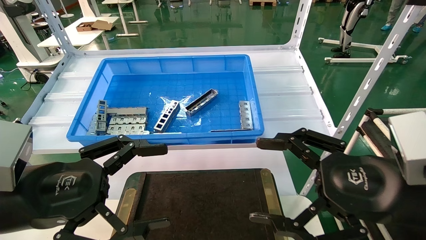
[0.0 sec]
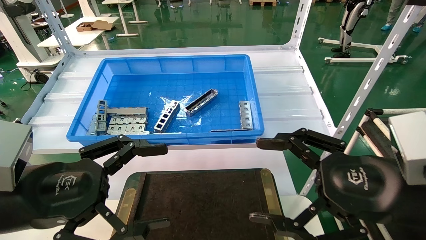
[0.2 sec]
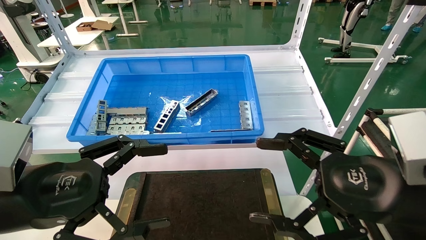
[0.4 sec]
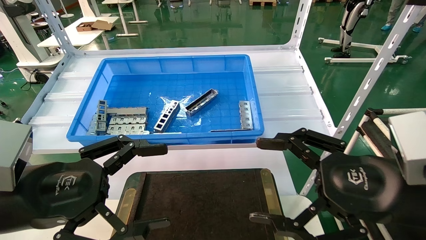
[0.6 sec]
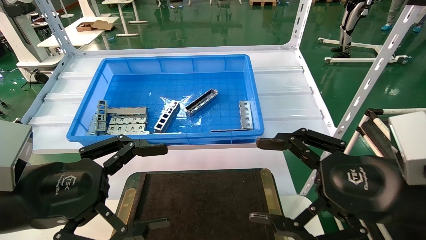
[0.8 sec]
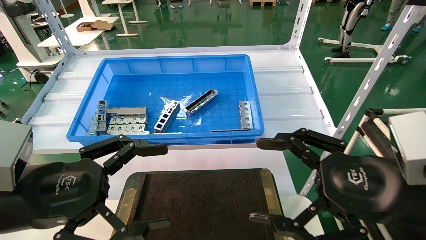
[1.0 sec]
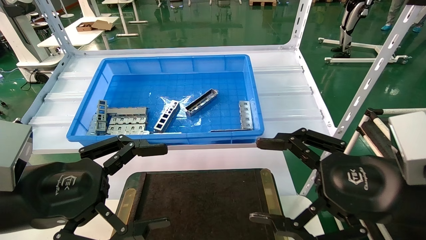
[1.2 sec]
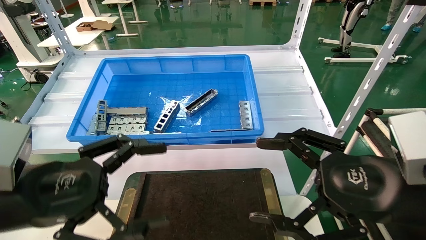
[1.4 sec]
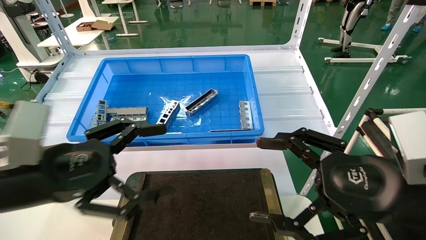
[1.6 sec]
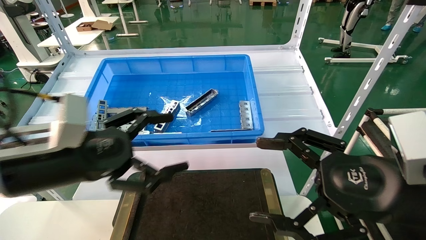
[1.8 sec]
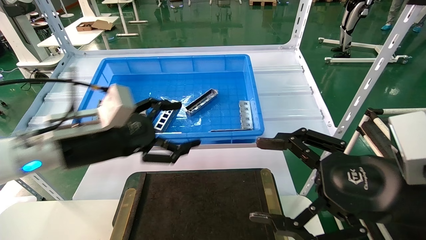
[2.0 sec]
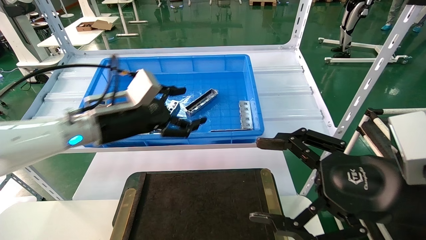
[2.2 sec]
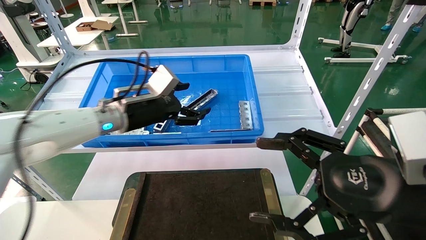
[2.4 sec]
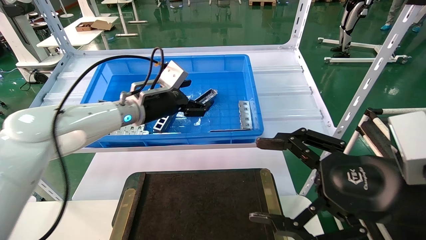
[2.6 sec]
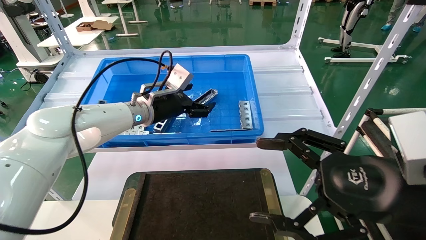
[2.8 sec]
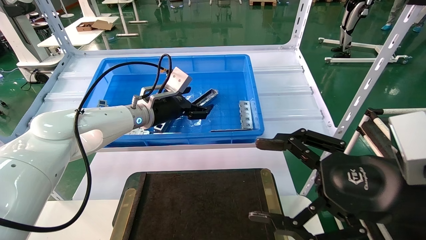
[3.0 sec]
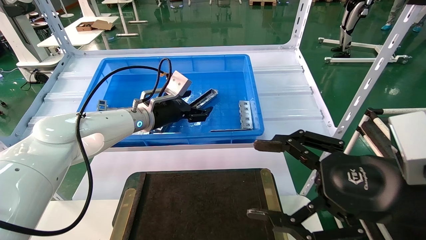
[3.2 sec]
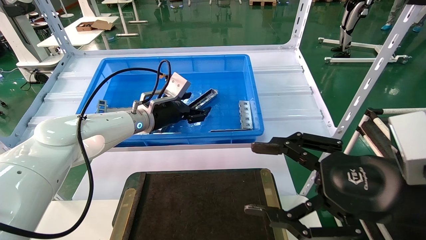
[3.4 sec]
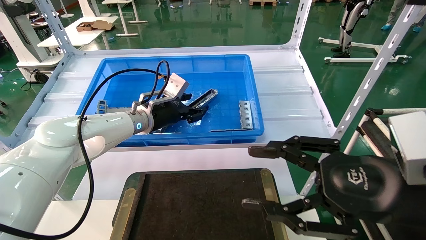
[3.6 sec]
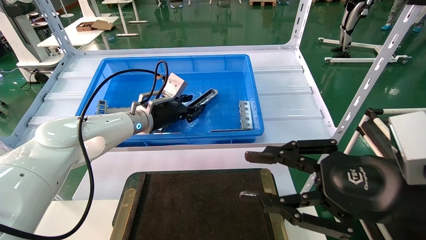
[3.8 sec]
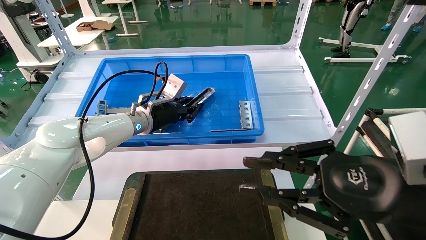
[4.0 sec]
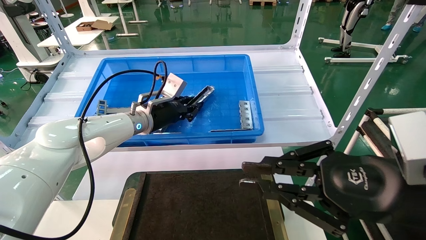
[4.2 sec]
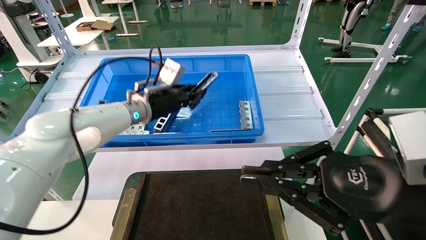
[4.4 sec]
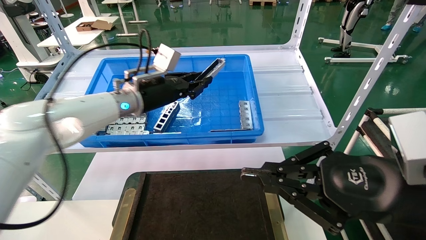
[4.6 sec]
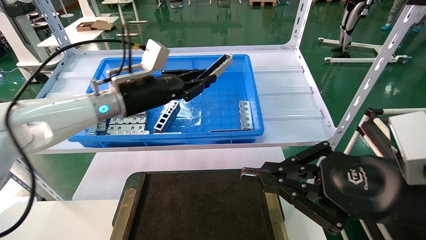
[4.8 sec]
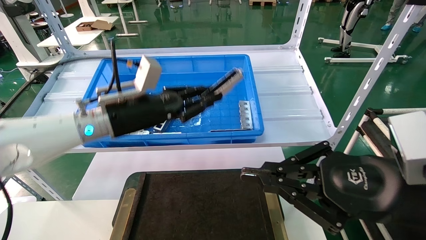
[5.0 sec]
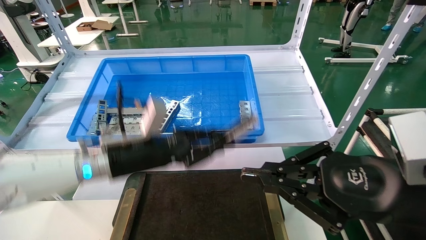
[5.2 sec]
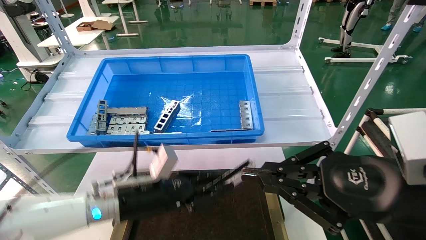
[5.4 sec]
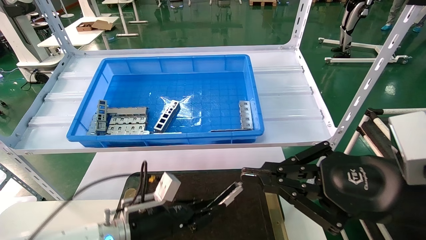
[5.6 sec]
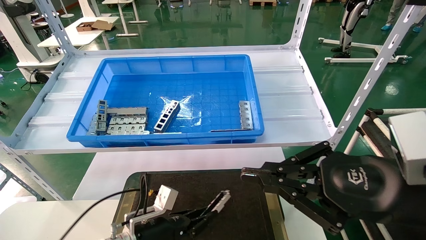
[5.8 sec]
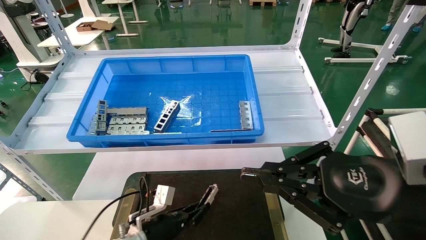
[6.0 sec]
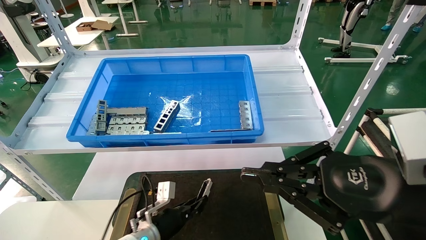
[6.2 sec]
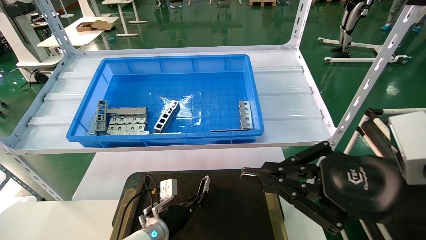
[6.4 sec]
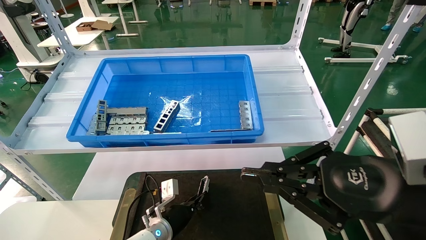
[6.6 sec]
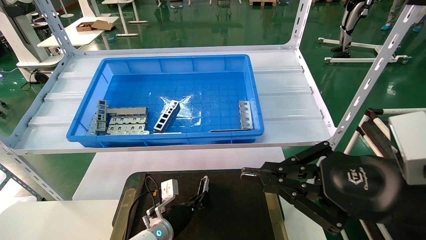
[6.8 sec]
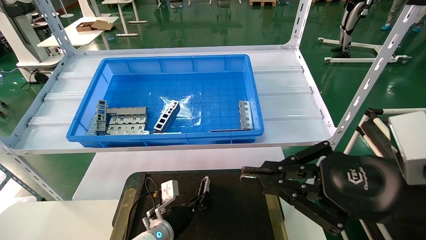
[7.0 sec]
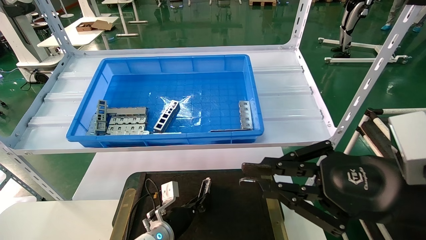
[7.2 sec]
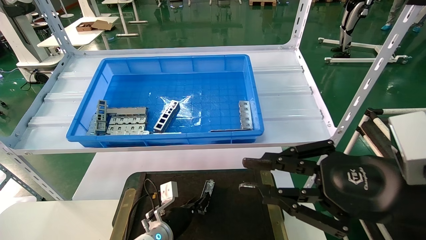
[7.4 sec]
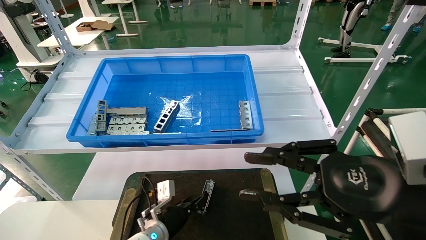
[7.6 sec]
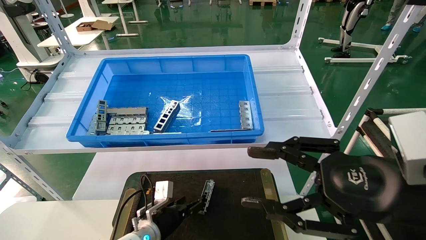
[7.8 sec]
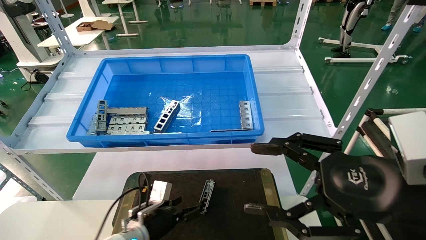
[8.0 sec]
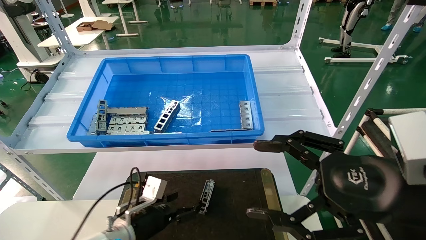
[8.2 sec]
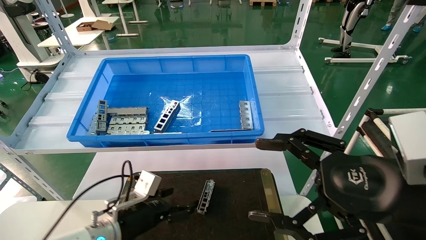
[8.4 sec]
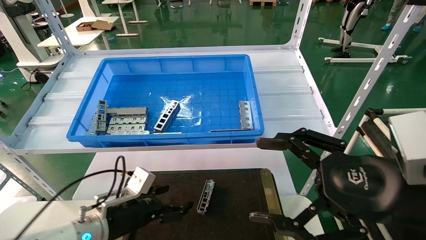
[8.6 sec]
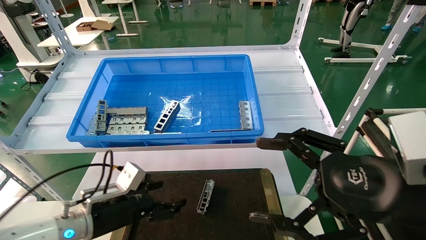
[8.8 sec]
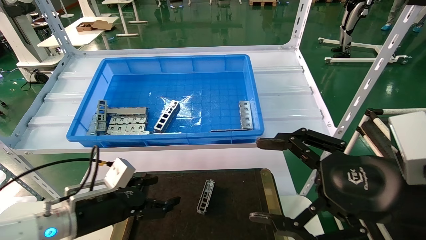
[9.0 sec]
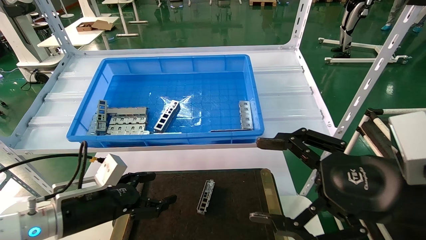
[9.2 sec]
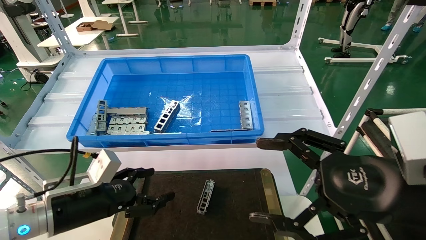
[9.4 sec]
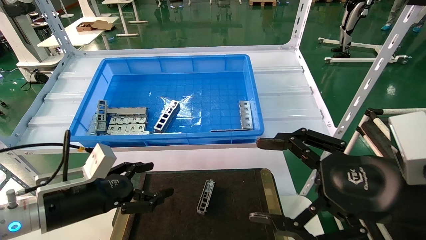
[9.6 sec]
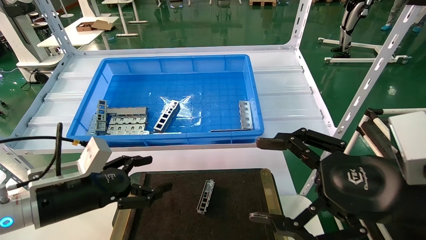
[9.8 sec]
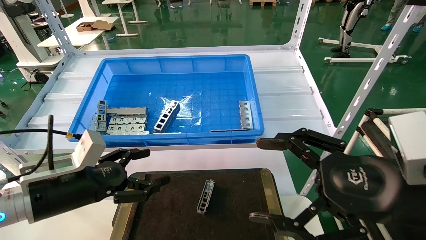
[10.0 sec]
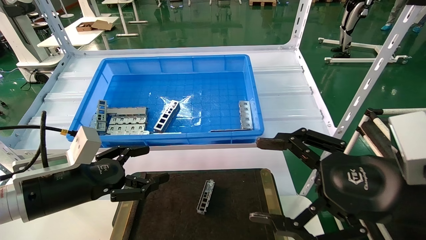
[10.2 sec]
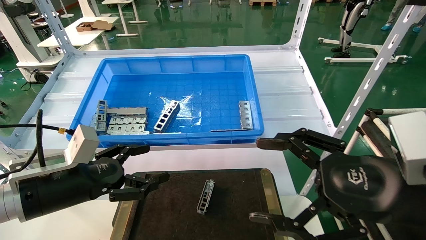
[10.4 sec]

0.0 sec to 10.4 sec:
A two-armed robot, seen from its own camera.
Task of the whole recording: Grasp the part with one hand and place it on the black container.
Step, 1.8 sec to 4.0 sec: Pick up the front USB bracket from the feeding area.
Step, 4.2 sec to 7.2 sec: Place the front USB bracket into the box.
0.0 sec to 1.4 sec: Both grippers stay about where they are.
1.4 sec to 3.0 sec: The left gripper moves forward, some 30 cm.
3.0 sec to 4.4 sec: The left gripper closes. The right gripper closes up.
4.4 sec to 6.0 sec: The left gripper shifts roughly 30 cm downward.
6.0 sec to 7.4 sec: The left gripper changes place by some 5 cm.
7.4 sec to 9.0 sec: The left gripper travels upward, to the left and backward by approximately 20 cm, and opens; the right gripper opens up.
9.0 sec to 10.4 sec: The left gripper shifts approximately 10 cm upward.
